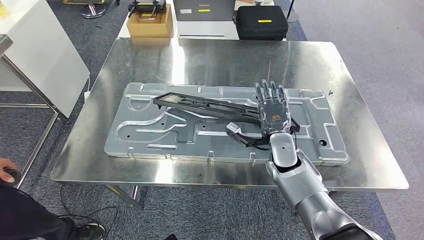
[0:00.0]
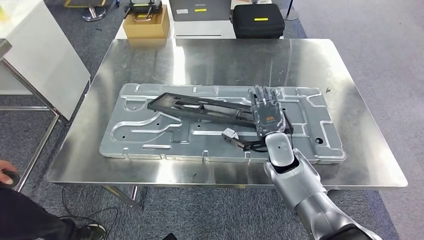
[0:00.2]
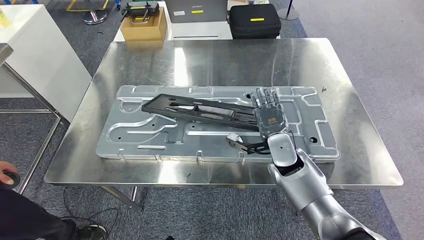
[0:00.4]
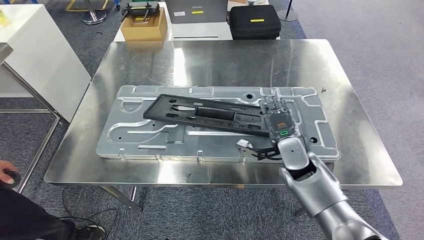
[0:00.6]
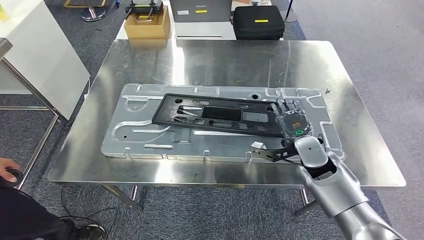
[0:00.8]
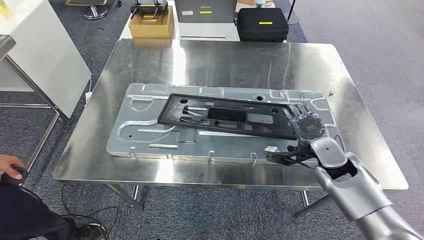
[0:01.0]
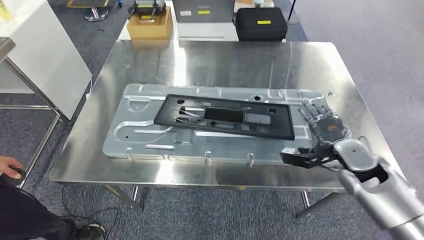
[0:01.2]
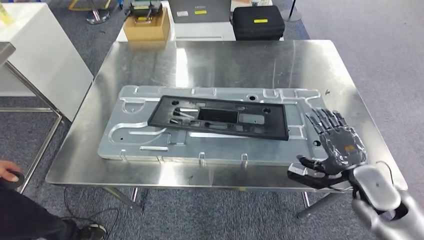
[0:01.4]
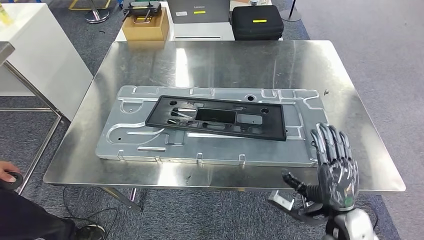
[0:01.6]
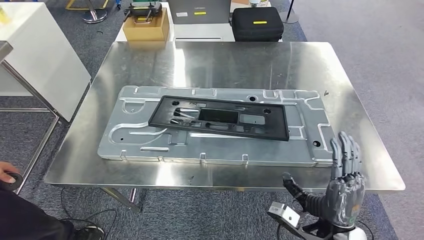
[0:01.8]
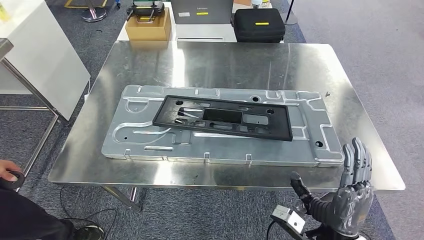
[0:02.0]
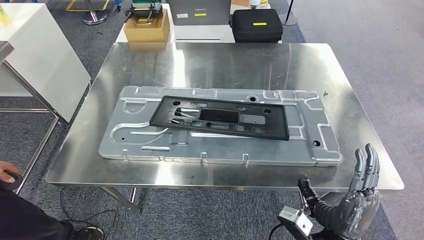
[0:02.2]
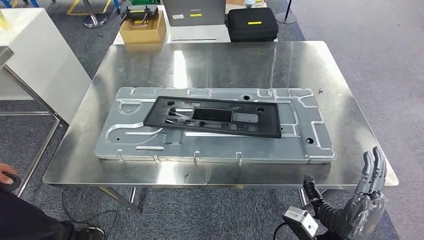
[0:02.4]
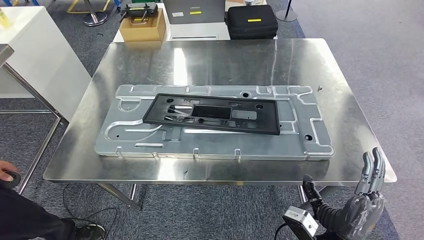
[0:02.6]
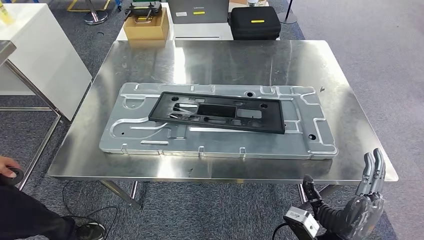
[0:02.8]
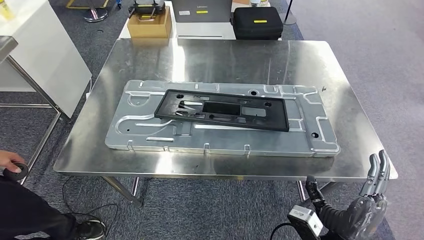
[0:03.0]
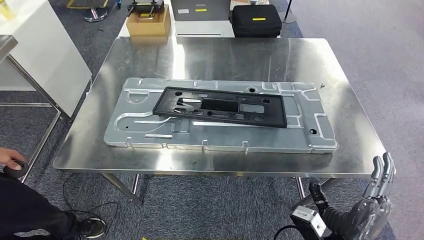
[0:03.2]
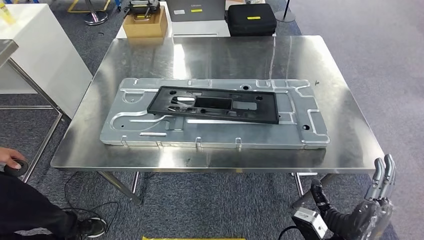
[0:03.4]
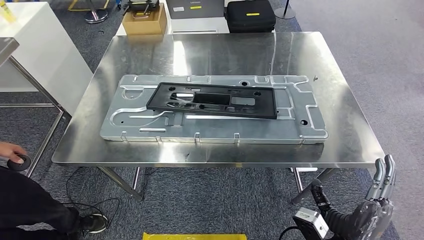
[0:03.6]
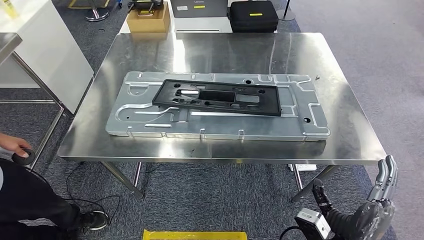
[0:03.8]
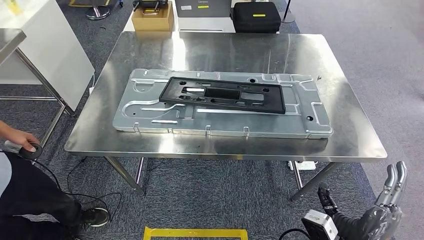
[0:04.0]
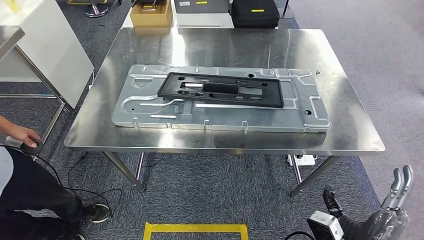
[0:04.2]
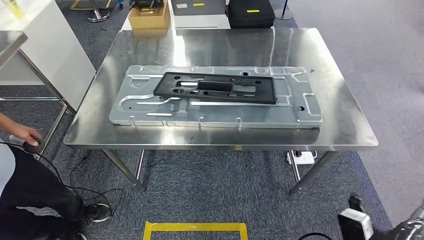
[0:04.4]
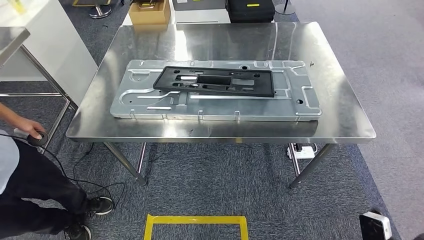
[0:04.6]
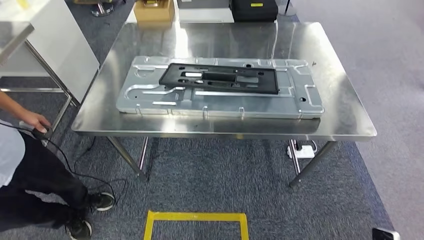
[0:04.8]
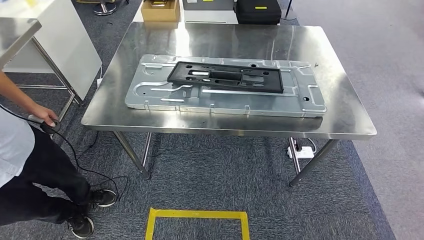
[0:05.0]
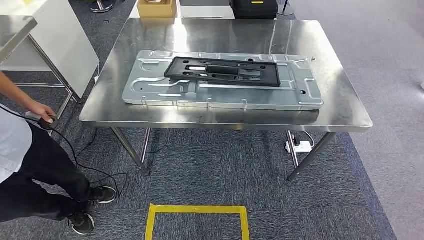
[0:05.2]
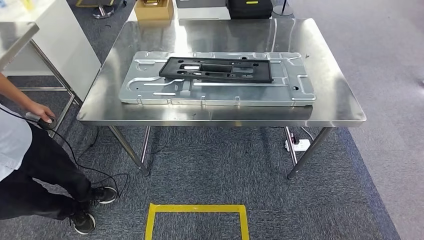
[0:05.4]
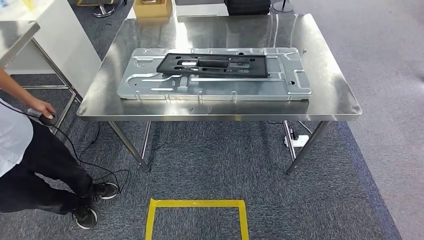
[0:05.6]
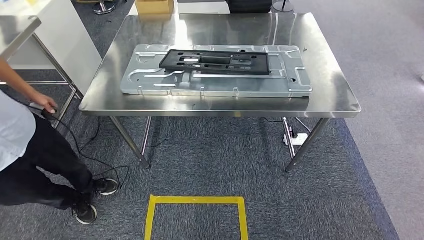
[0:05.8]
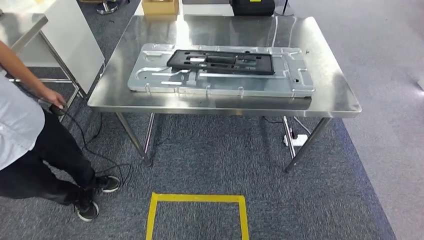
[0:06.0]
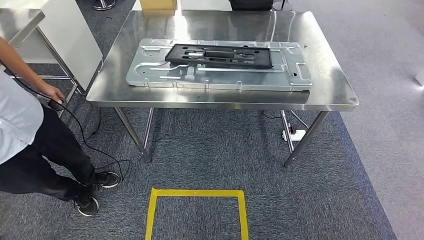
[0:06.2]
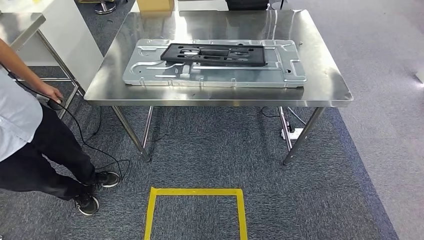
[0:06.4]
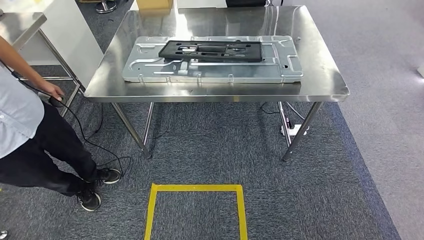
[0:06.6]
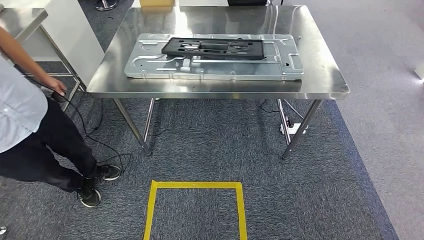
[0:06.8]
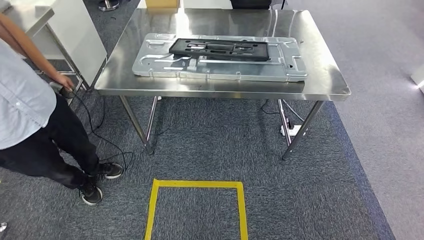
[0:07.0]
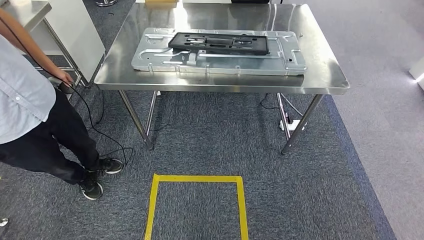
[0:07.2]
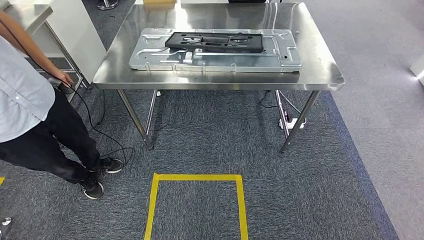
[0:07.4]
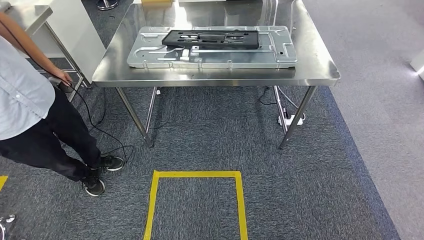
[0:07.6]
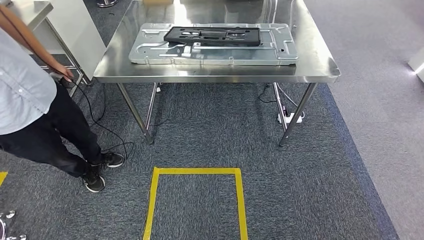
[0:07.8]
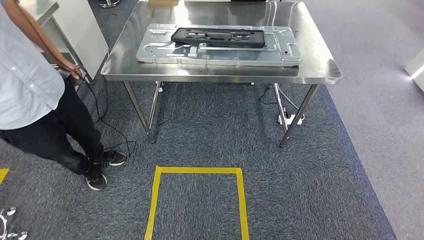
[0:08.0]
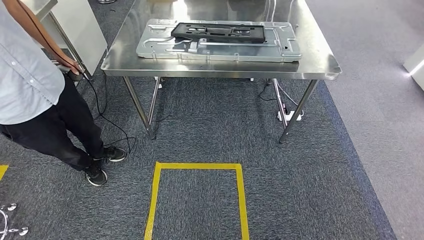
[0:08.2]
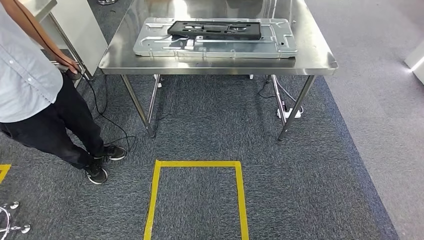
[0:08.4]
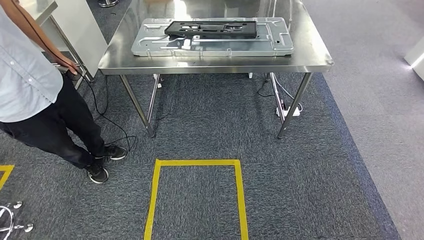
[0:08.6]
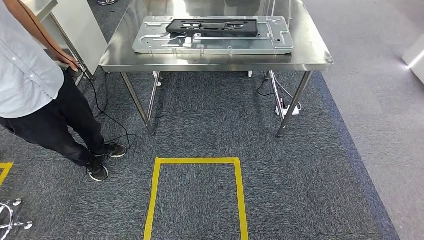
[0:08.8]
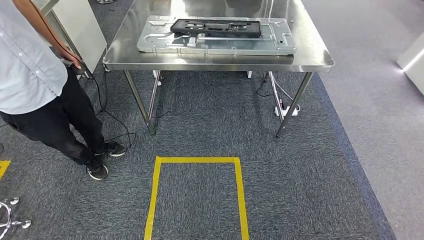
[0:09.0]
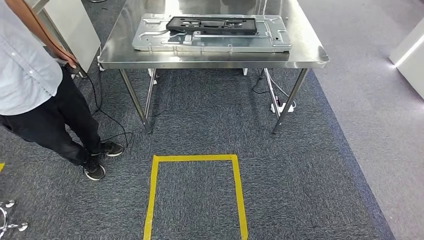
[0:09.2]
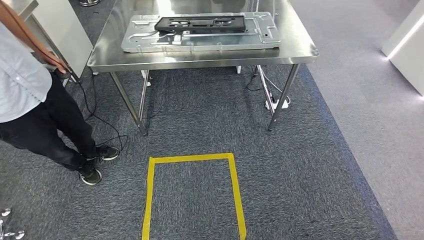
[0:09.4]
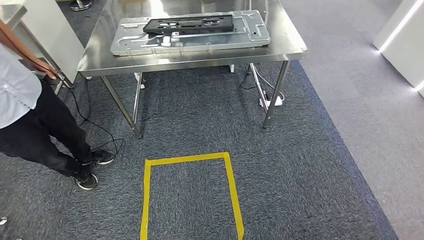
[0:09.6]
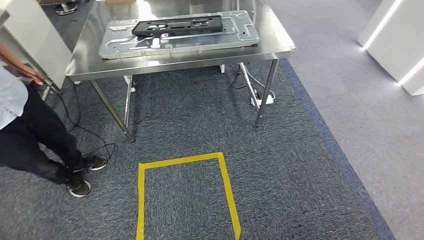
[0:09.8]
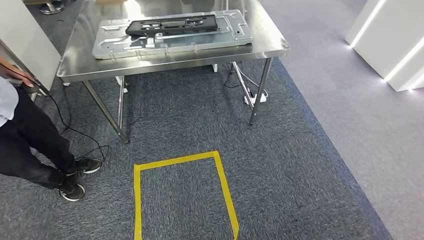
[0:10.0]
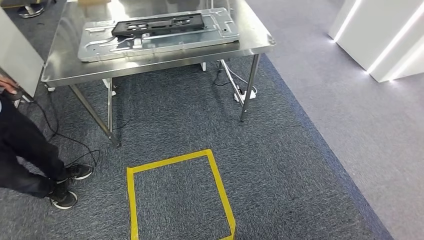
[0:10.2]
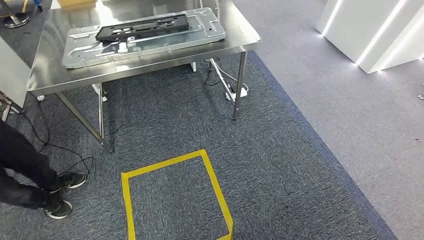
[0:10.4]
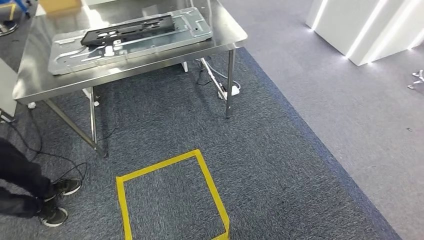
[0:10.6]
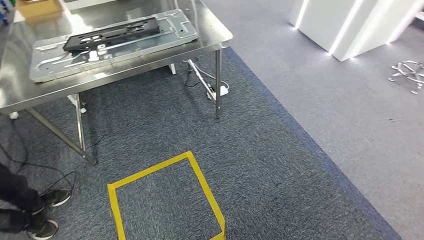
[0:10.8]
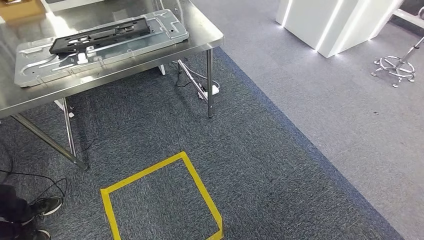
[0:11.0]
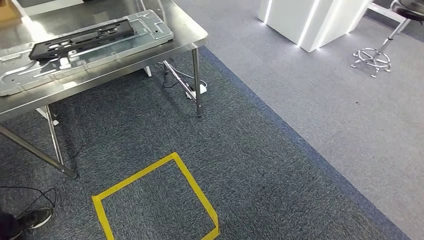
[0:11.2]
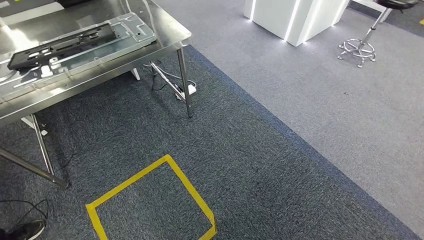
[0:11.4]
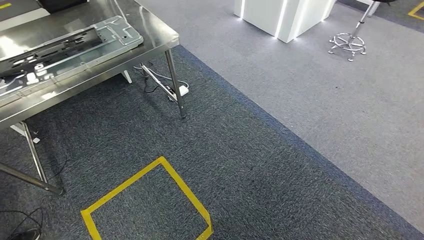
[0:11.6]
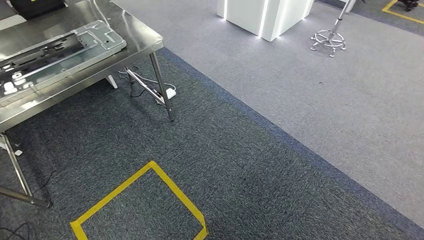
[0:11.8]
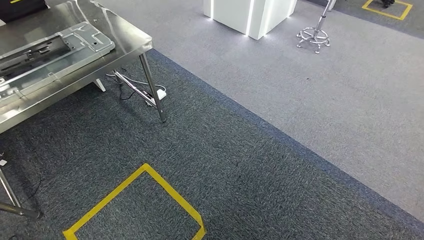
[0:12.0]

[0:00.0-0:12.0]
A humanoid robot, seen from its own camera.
Step, 0:00.0 to 0:04.2: Insert the large material into the corresponding slot on the workbench.

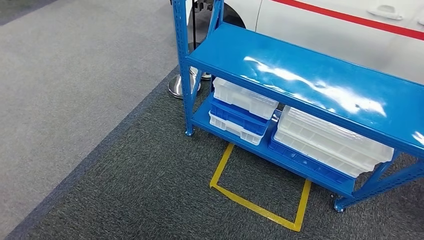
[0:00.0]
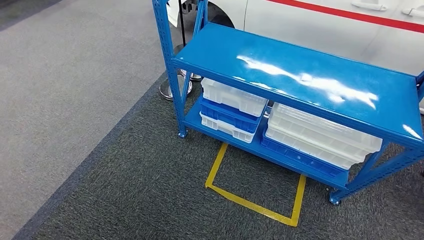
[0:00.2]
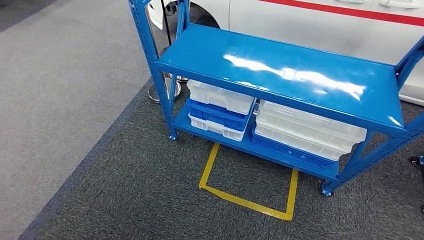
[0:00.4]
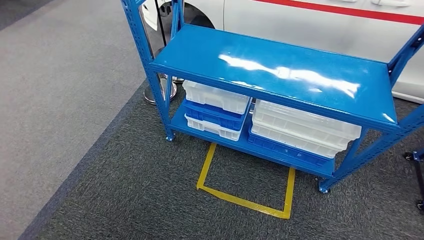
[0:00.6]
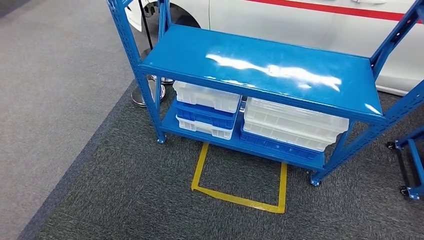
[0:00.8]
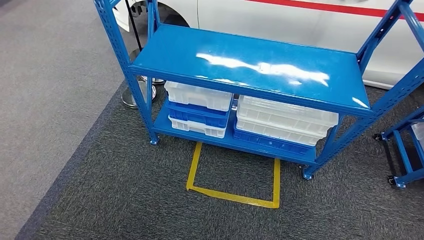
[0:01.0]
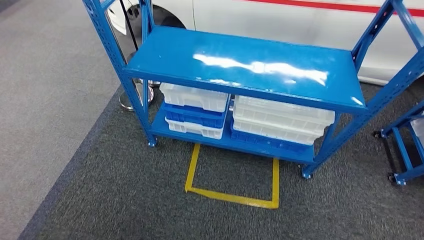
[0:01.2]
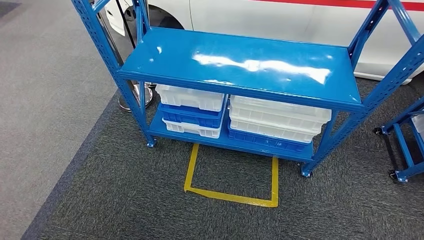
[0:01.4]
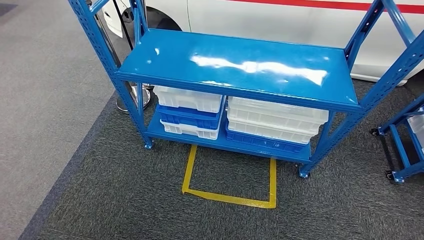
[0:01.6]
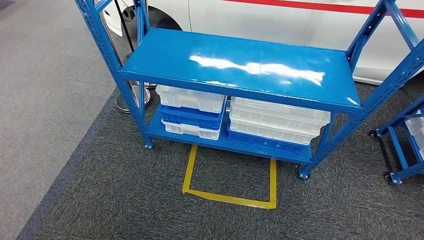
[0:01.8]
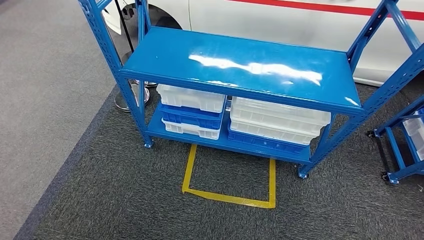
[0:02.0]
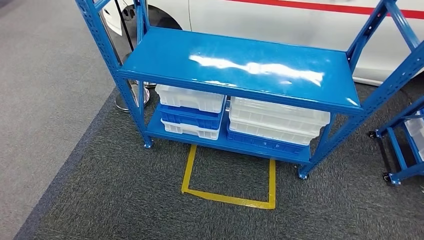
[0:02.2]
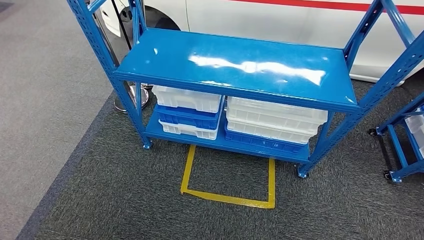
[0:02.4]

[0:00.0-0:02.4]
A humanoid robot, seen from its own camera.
Step, 0:00.0 to 0:02.4: Move to the initial position of the shelf.
0:01.2 to 0:02.4: Both hands stay about where they are.
